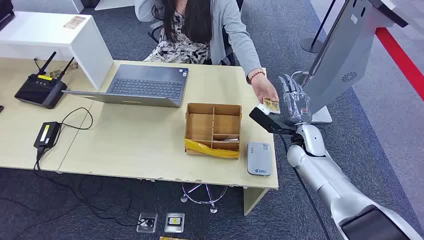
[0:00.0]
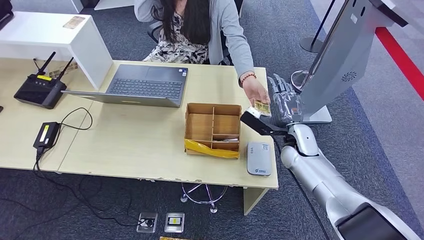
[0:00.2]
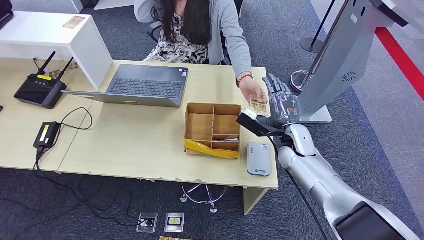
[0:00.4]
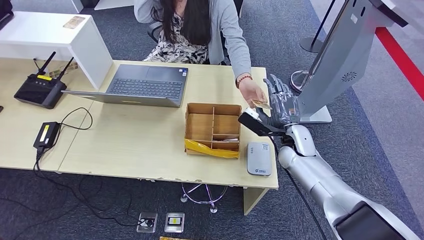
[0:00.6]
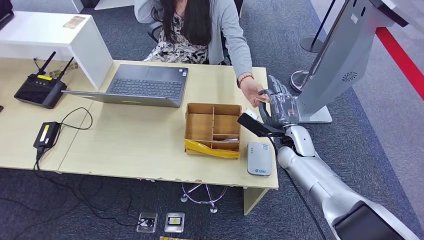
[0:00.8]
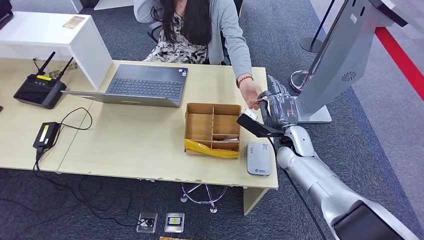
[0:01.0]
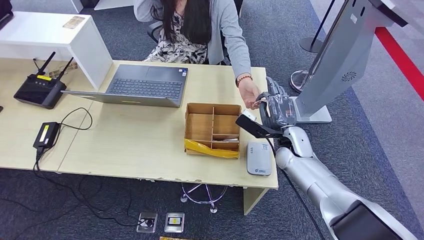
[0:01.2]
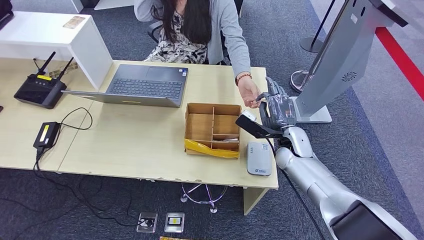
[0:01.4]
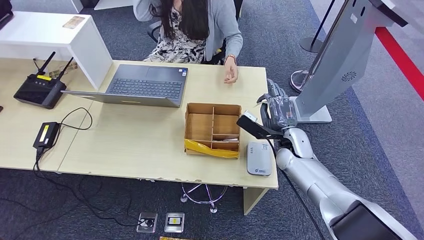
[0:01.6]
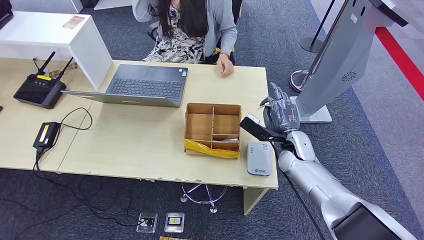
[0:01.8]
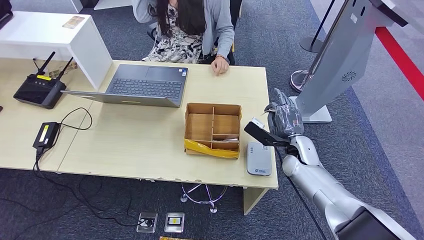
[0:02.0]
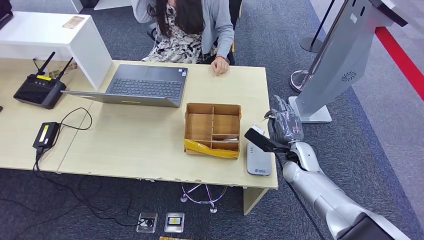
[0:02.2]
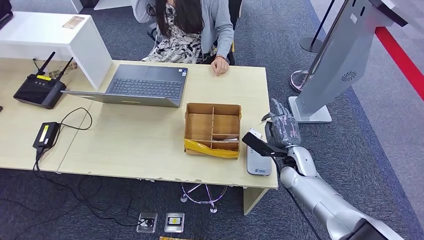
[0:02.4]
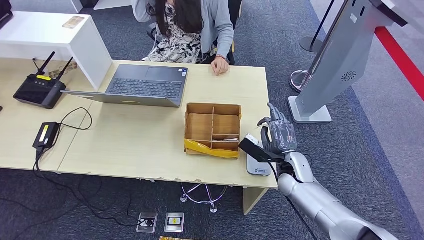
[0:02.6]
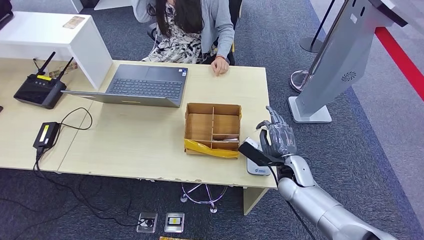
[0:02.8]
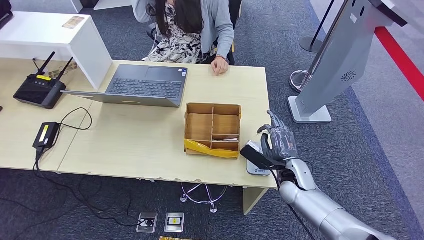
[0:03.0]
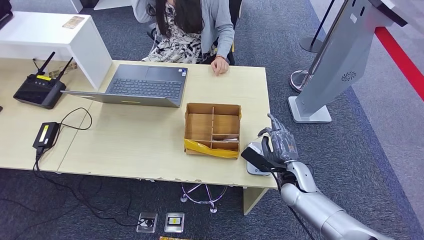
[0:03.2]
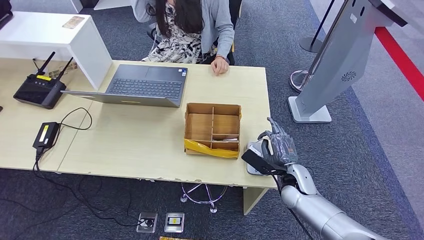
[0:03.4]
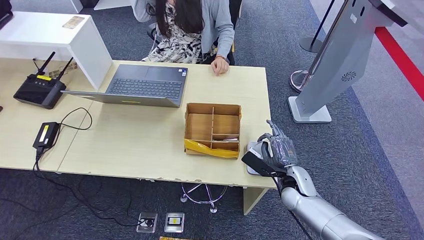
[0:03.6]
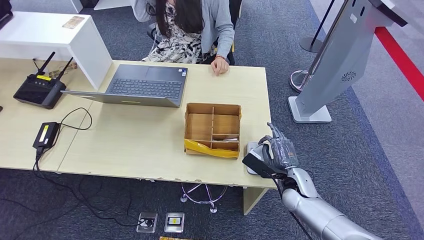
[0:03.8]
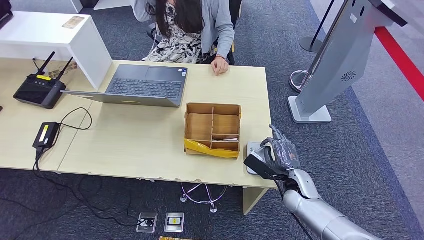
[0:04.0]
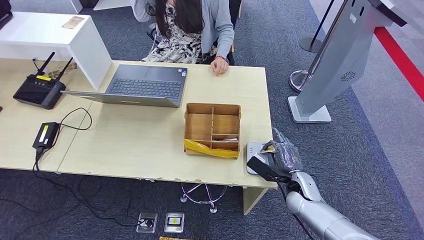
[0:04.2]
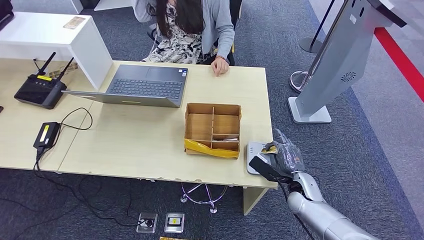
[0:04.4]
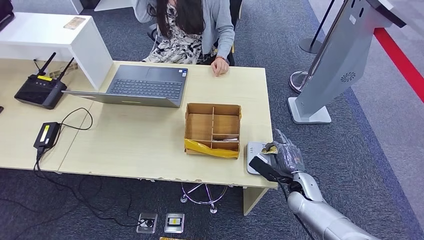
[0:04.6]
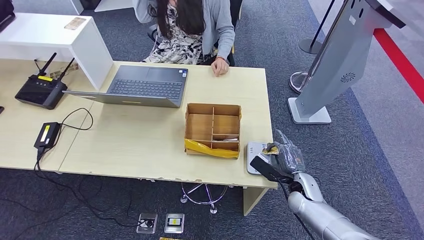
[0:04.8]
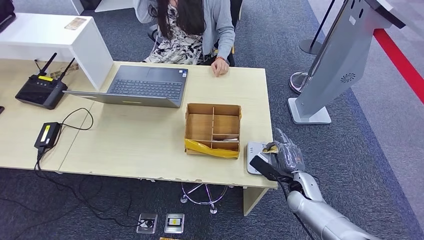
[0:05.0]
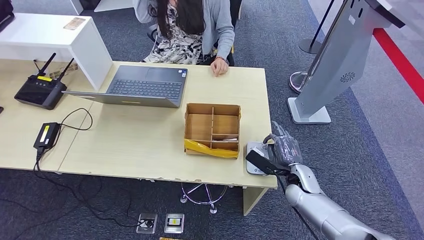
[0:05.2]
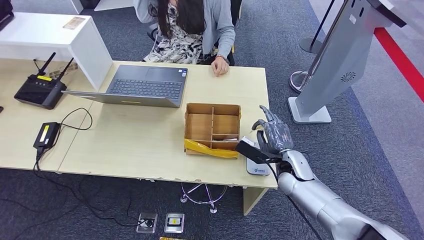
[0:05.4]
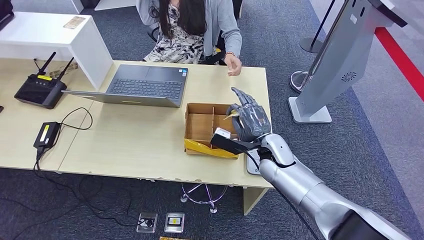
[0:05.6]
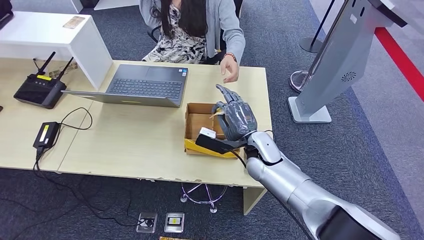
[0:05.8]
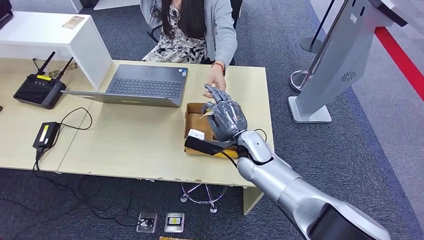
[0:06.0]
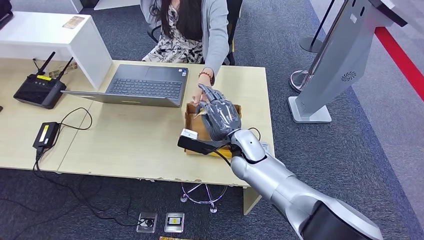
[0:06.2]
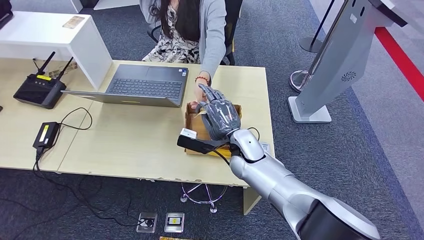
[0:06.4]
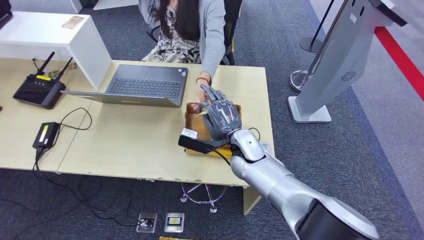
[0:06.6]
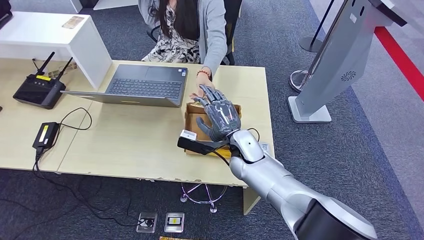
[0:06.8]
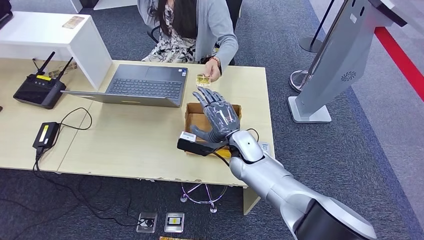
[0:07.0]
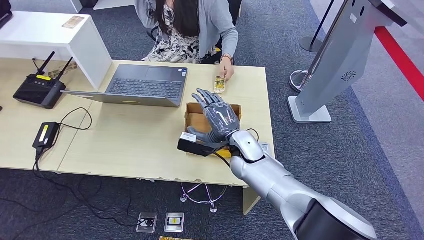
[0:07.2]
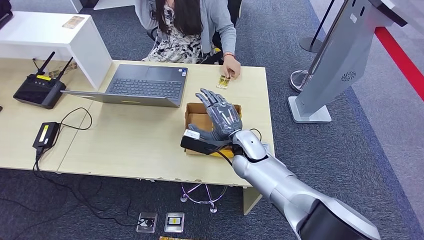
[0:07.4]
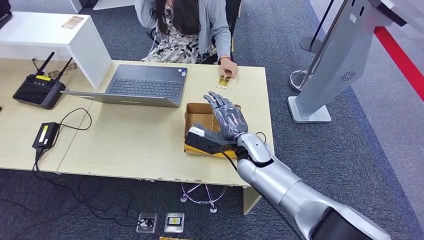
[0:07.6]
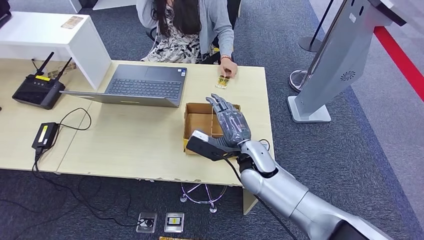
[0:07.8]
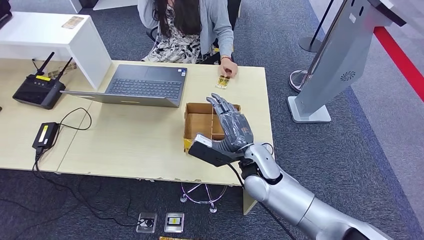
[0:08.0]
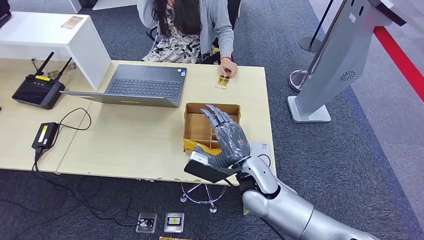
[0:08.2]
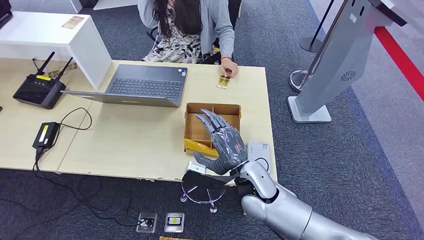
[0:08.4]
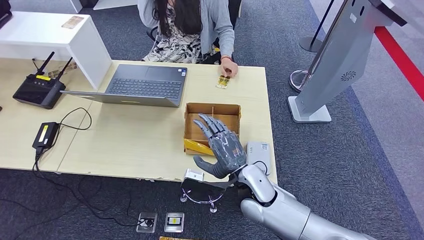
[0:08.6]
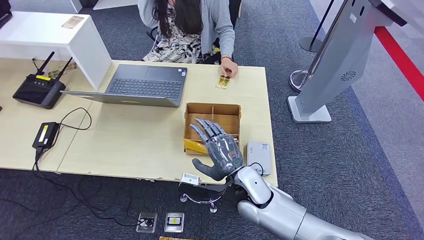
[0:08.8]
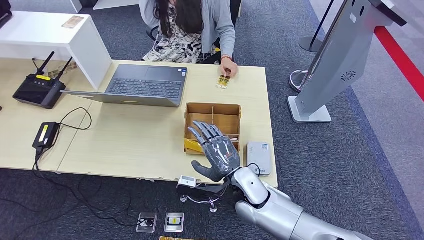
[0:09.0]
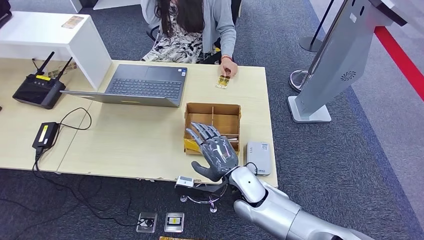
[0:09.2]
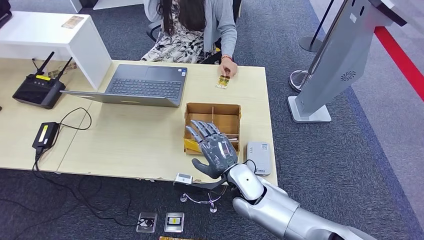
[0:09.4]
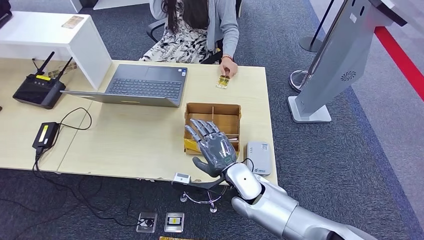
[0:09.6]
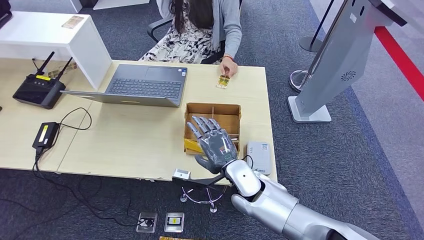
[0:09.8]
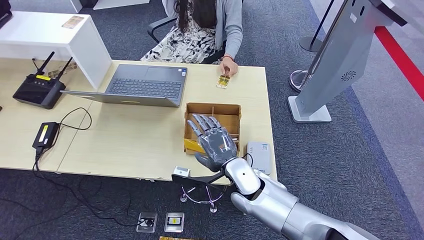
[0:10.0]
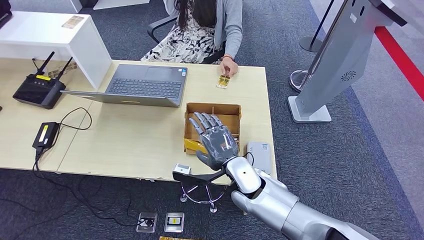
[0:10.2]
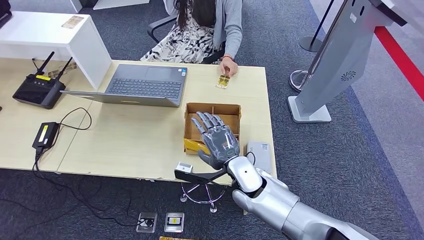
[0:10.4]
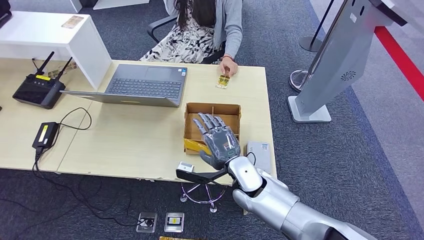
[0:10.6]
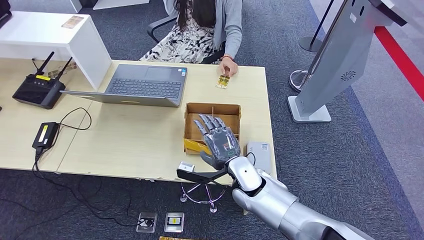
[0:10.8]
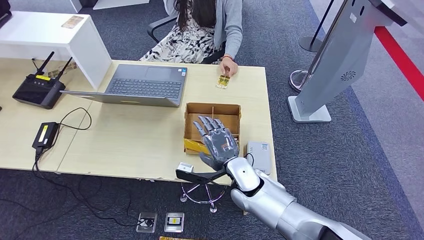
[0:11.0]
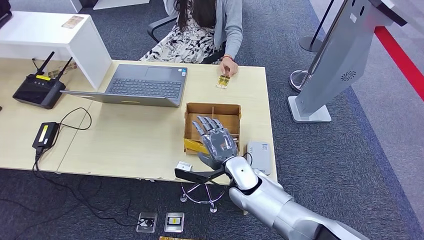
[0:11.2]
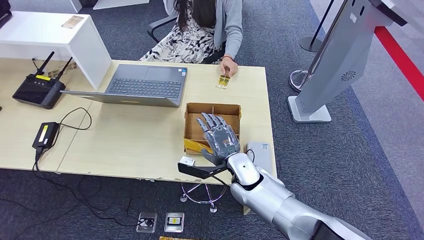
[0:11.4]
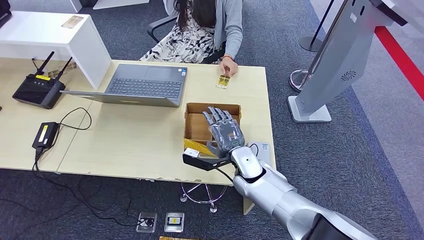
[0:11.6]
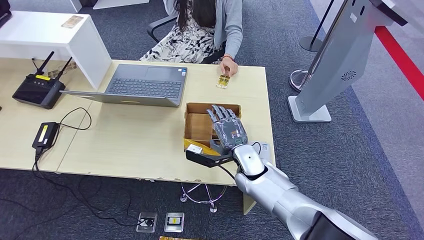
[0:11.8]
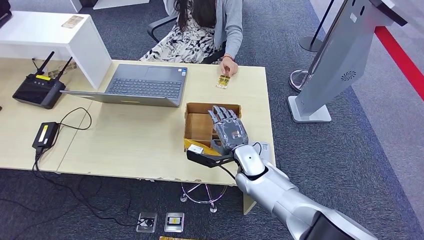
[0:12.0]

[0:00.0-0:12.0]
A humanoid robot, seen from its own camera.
Step, 0:00.0 to 0:01.6: Take the ID card from the person's hand.
Step, 0:01.8 to 0:05.0: Place the ID card on the card reader.
Step, 0:05.2 to 0:08.4: Hand the ID card to the person.
0:01.6 to 0:03.0: The right hand is displaced backward and downward by roughly 10 cm.
0:03.0 to 0:04.4: The right hand moves roughly 5 cm.
0:04.4 to 0:06.0: The right hand travels to the left and upward by approximately 20 cm.
0:06.0 to 0:07.6: The hands make only small movements.
0:07.6 to 0:09.0: The right hand goes about 10 cm backward.
0:09.0 to 0:10.4: The hands move only a little.
0:10.4 to 0:12.0: The hands stay close to where they were, moving slightly.

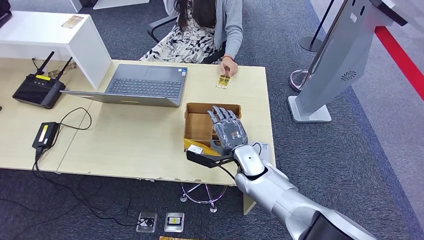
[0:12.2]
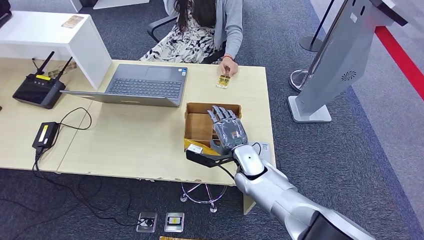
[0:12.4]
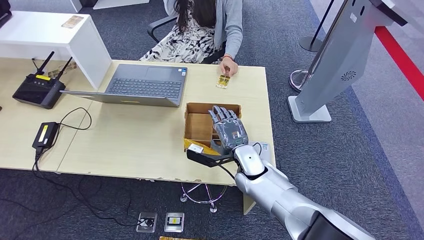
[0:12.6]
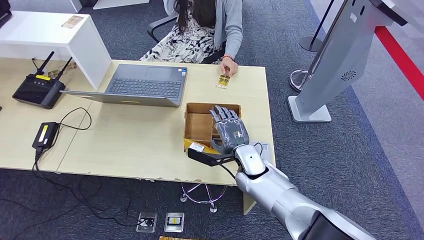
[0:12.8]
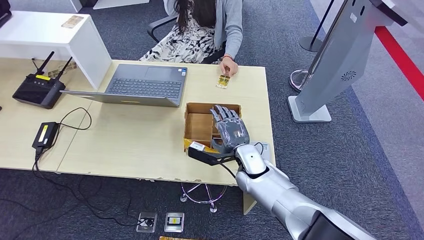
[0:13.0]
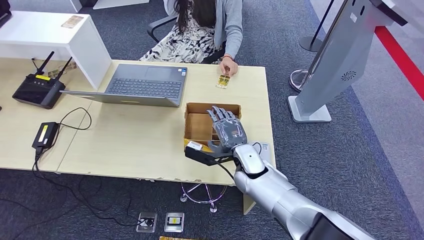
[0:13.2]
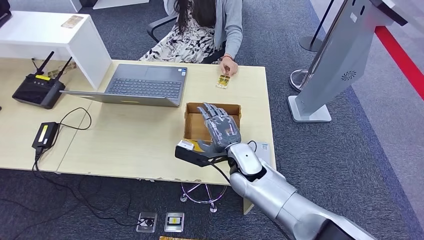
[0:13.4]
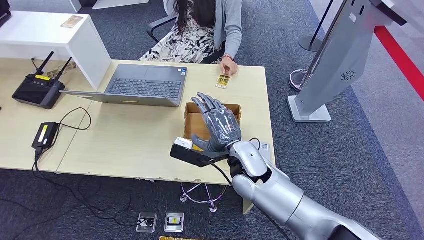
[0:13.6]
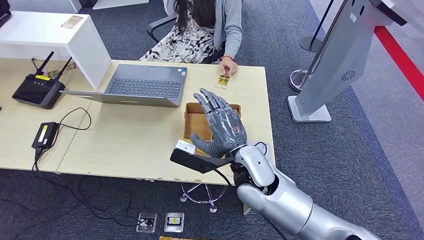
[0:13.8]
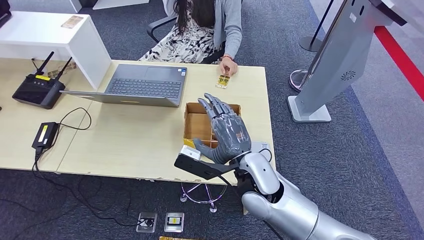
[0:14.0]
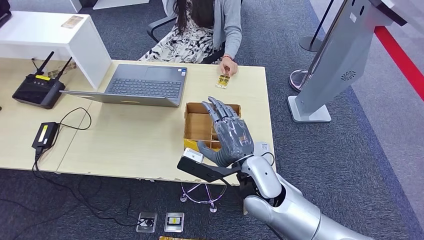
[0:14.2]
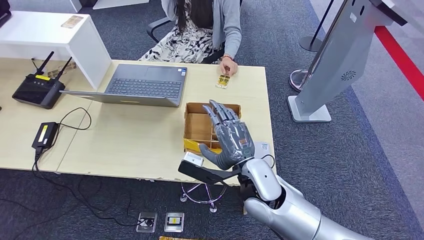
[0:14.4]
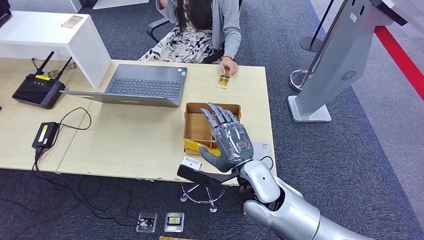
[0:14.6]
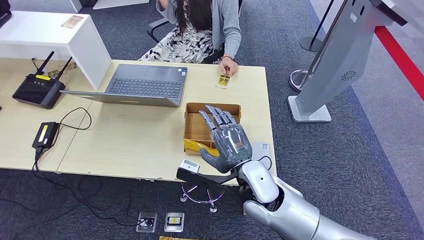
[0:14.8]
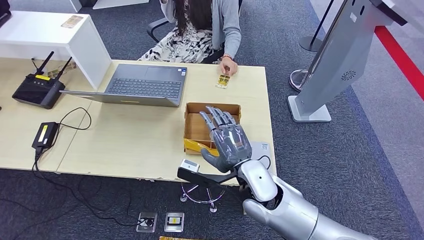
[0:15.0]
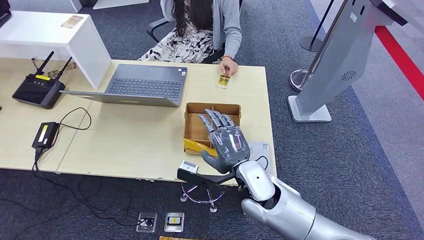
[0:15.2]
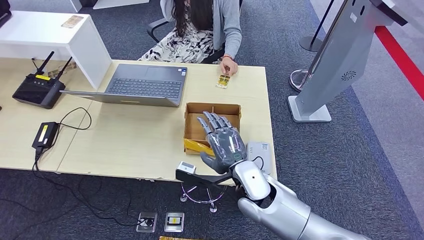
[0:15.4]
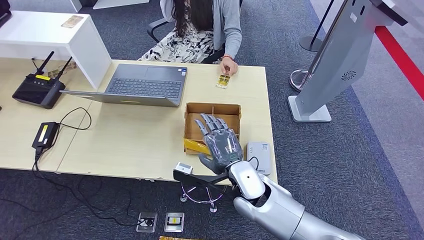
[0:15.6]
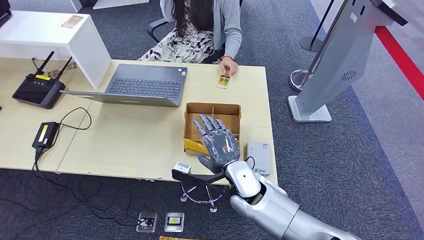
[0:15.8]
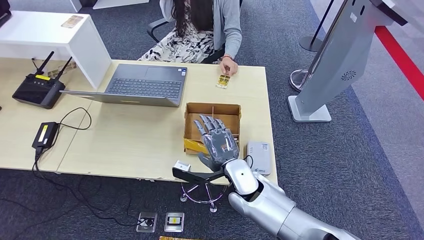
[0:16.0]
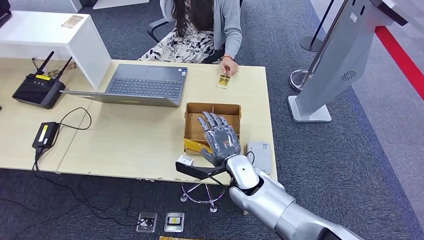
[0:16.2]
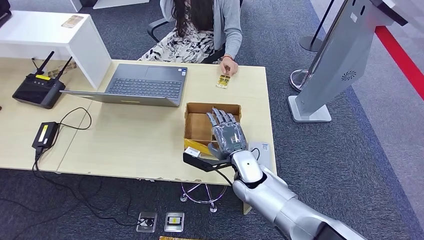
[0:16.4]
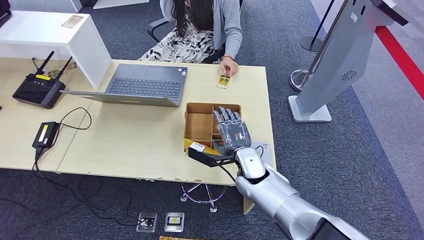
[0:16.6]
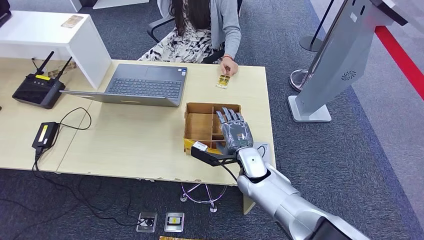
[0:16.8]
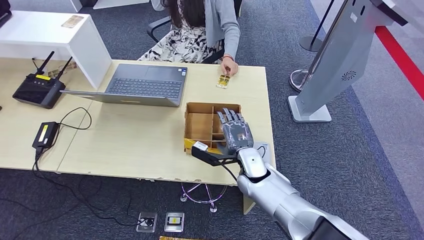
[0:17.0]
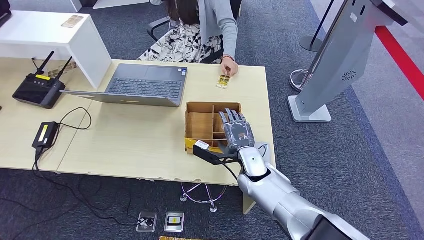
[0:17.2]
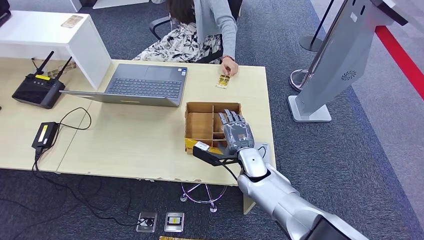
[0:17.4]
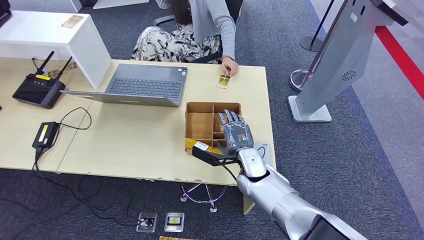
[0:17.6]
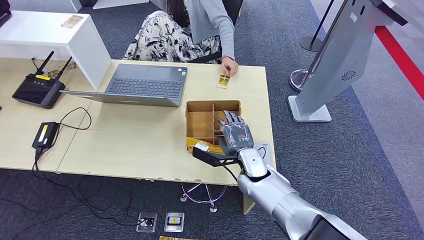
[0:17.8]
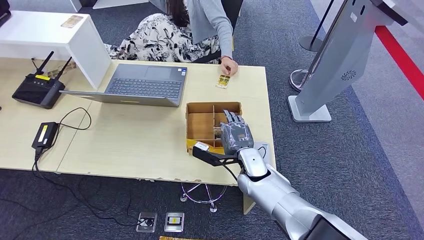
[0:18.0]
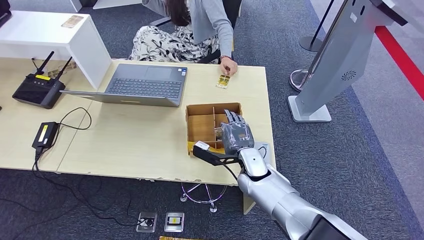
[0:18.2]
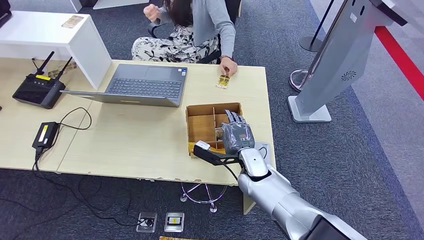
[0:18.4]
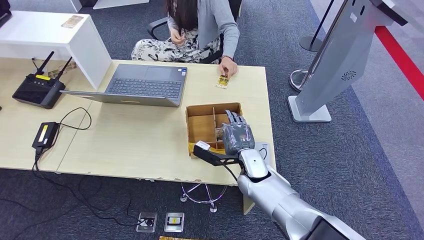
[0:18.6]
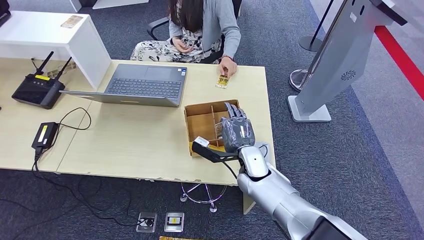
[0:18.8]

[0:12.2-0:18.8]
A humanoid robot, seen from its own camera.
0:12.2 to 0:13.8: The right hand travels upward and backward by some 10 cm.
0:13.8 to 0:15.4: The right hand is displaced downward by approximately 5 cm.
0:15.4 to 0:17.2: The right hand moves forward, approximately 5 cm.
0:17.2 to 0:18.8: The hands move only a little.
